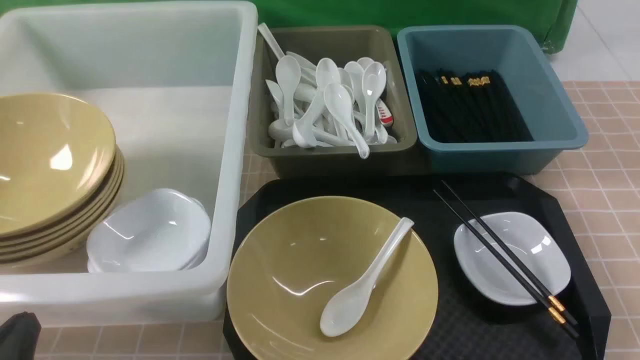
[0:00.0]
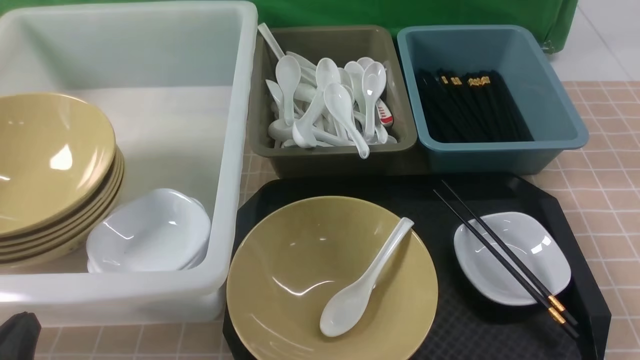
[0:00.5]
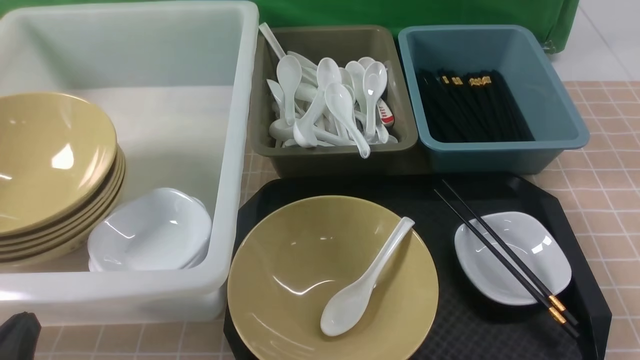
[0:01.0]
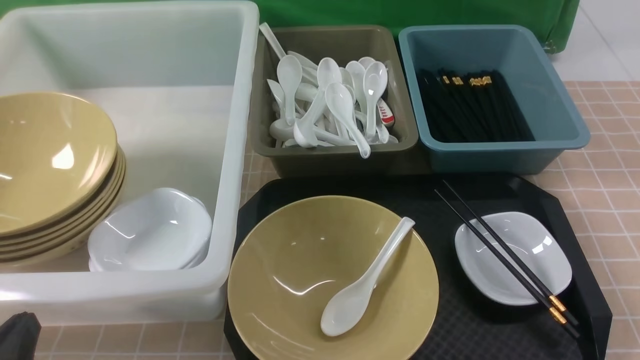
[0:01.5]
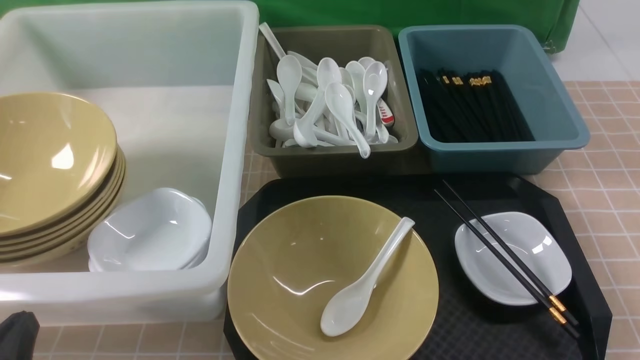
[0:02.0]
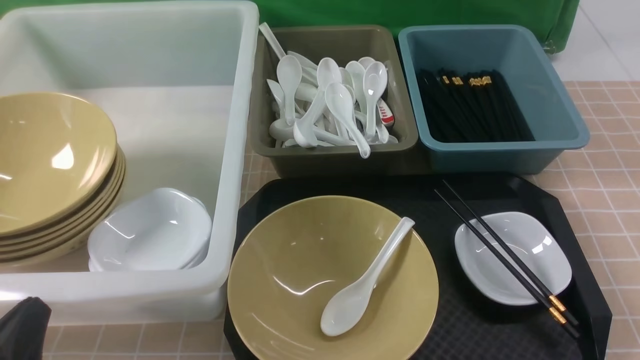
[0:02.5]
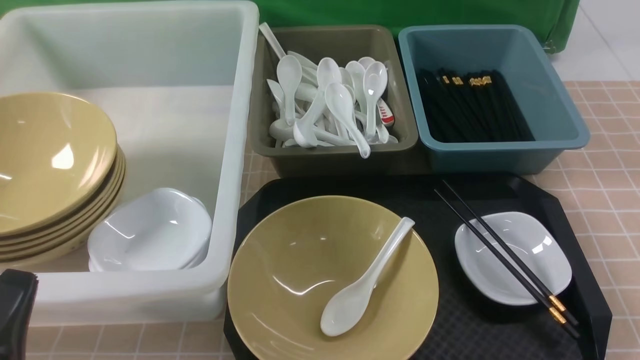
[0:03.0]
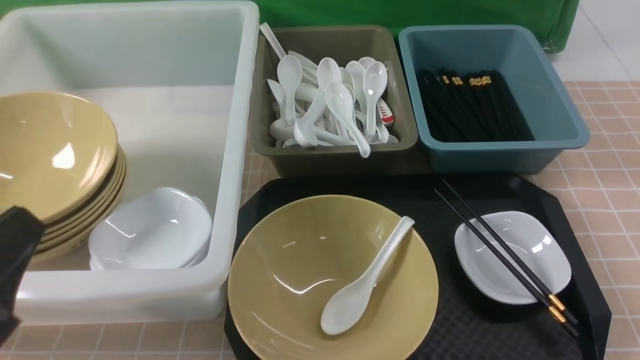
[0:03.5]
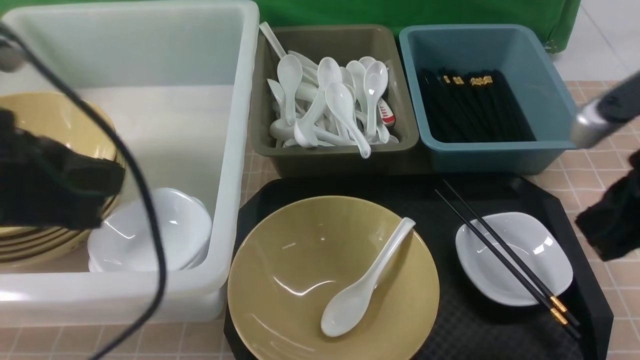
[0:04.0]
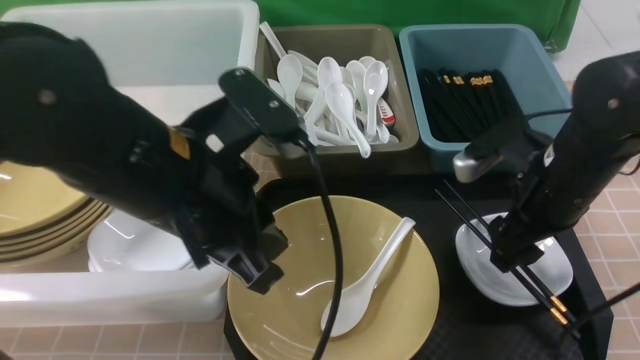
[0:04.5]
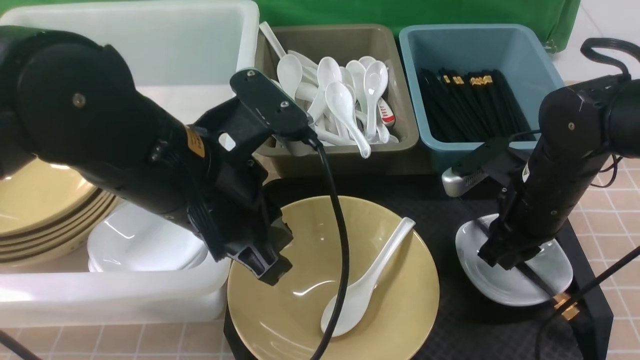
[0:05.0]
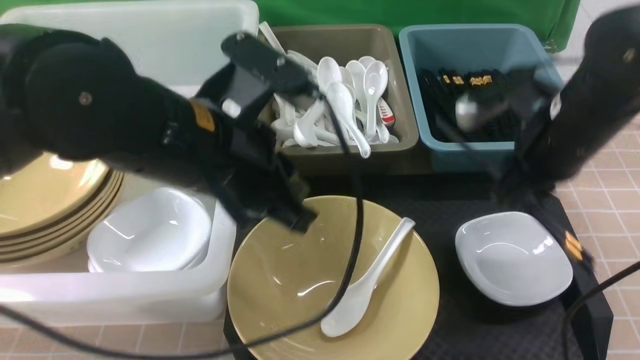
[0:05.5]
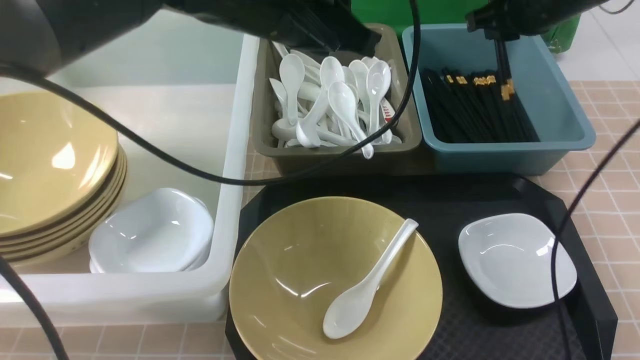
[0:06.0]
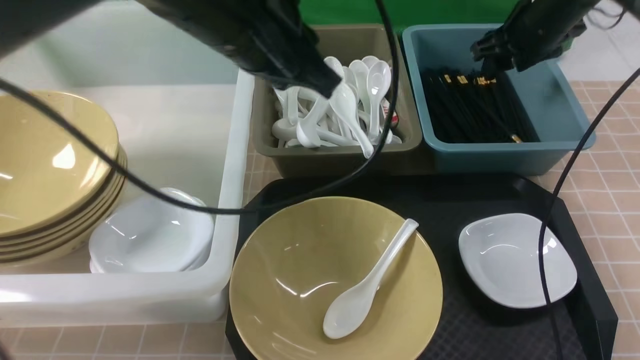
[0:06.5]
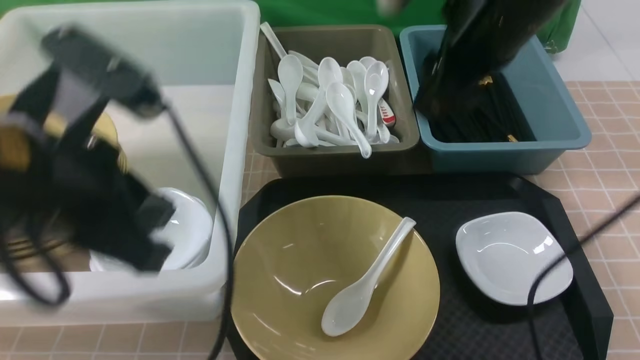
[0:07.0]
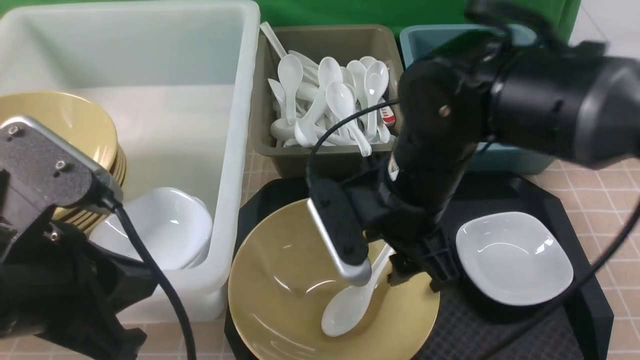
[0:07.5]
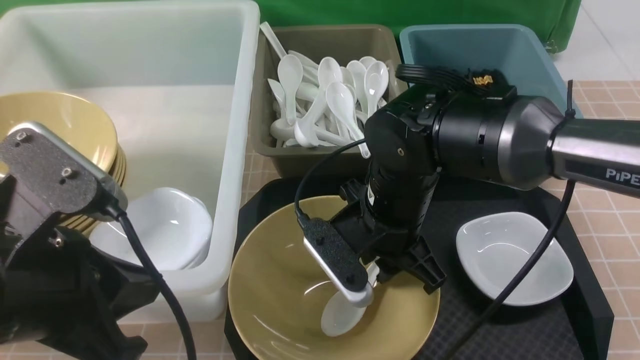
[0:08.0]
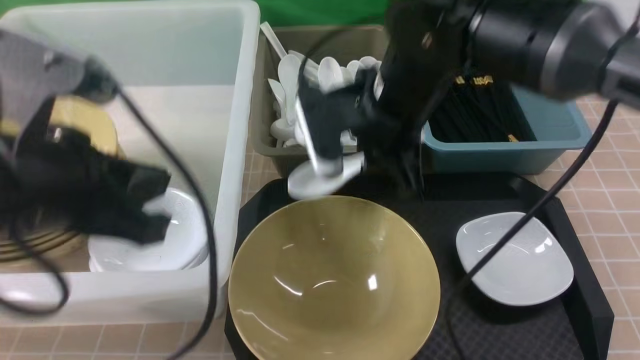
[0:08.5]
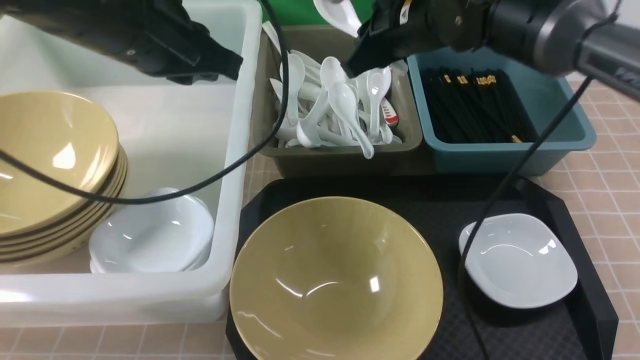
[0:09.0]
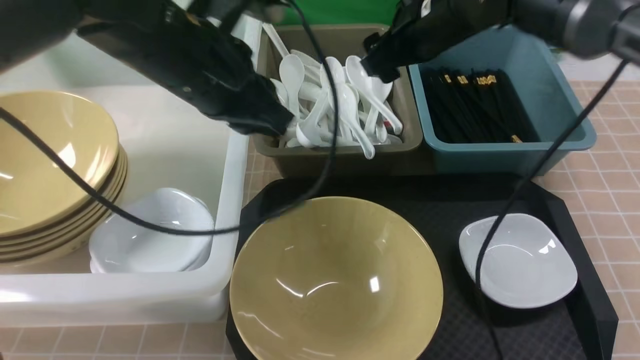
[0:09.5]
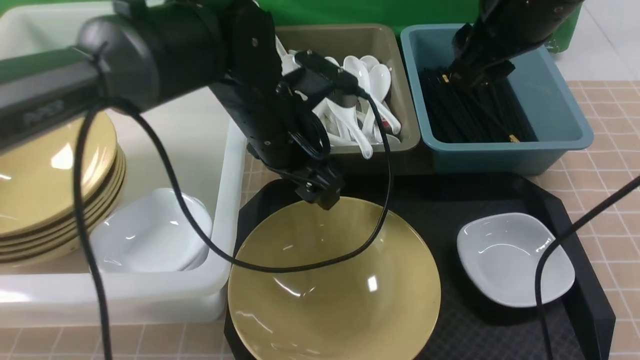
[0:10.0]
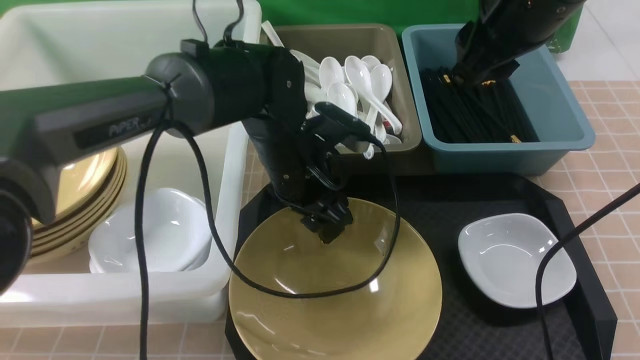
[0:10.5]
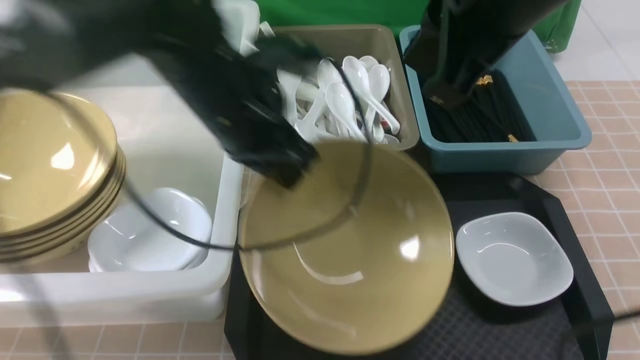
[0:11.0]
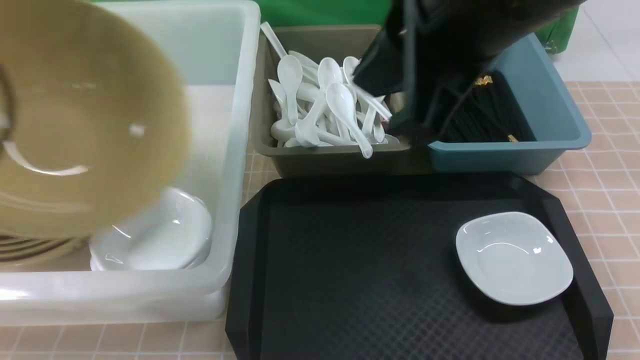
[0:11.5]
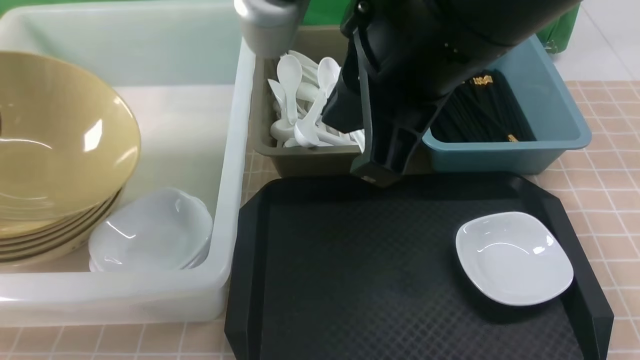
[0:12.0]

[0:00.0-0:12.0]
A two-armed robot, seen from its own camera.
Task of the whole recording: on brown table put chopsticks spoon bowls plates into blue grey white boxes.
Step, 0:00.0 to 0:05.0: use the right arm to grab the chopsticks.
Step, 0:05.5 to 0:06.5: use the right arm to put the chopsticks into the small storage box on the right.
Step, 0:07.0 to 0:08.0: use the right arm to grab the soup spoon in the middle.
Step, 0:08.5 to 0:09.5: use the right arm to put the soup spoon into the small storage box in the middle.
Step, 0:10.0 to 0:10.5: use the left arm to grab the yellow noodle bowl on the left.
0:00.0 to 0:02.0: The two grippers keep their place.
0:02.0 to 0:04.0: The right gripper shifts approximately 20 cm forward, upward and to the left. Meanwhile the left gripper is displaced upward and forward by approximately 20 cm.
0:04.0 to 0:06.0: The right gripper shifts some 25 cm forward, and opens, then closes again. Meanwhile the left gripper travels forward and to the right by approximately 20 cm.
0:06.0 to 0:08.0: The right gripper moves to the left, backward and downward, roughly 25 cm, and opens and closes again, while the left gripper travels backward and to the left by roughly 25 cm.
0:08.0 to 0:10.0: The left gripper moves forward and to the right, approximately 25 cm, and opens, while the right gripper moves upward and to the right, roughly 20 cm.
0:10.0 to 0:12.0: The right gripper goes some 15 cm backward and to the left, and closes up. Meanwhile the left gripper is displaced to the left by about 35 cm, and closes up.

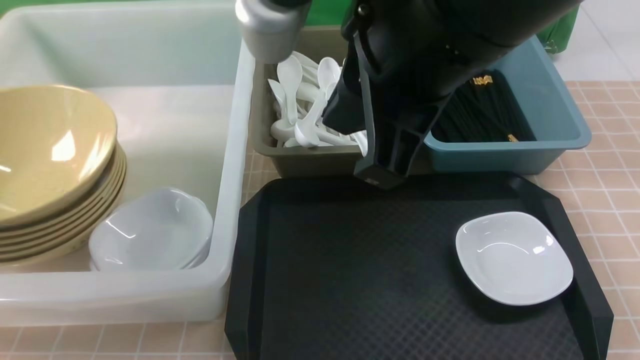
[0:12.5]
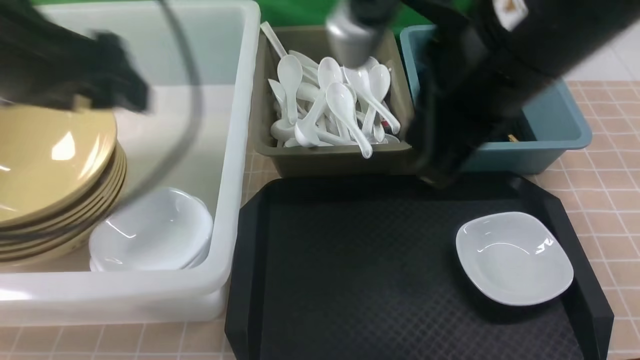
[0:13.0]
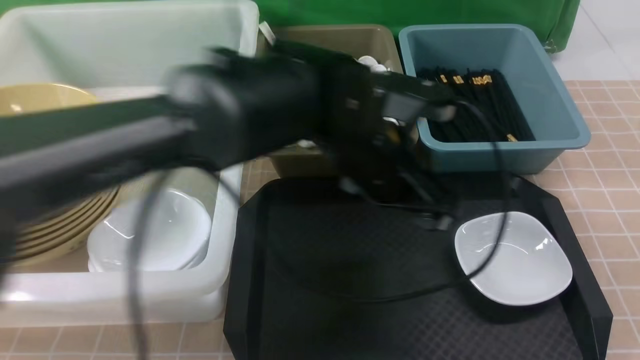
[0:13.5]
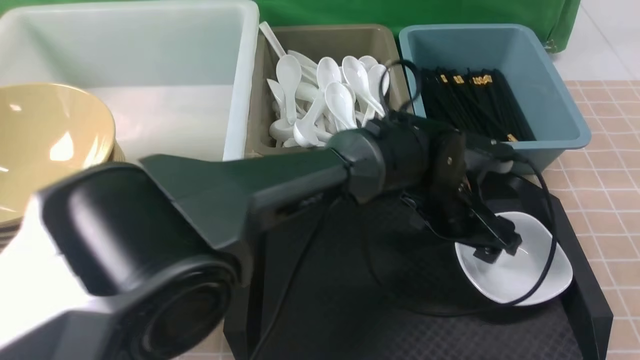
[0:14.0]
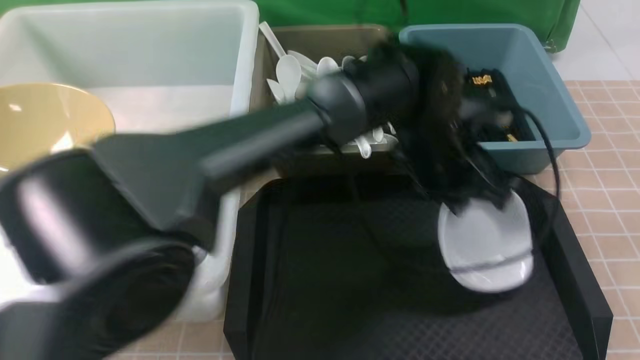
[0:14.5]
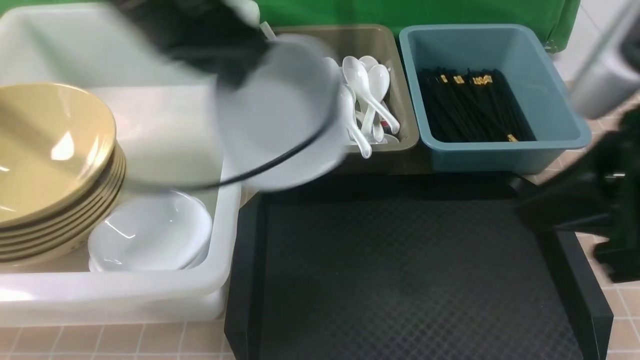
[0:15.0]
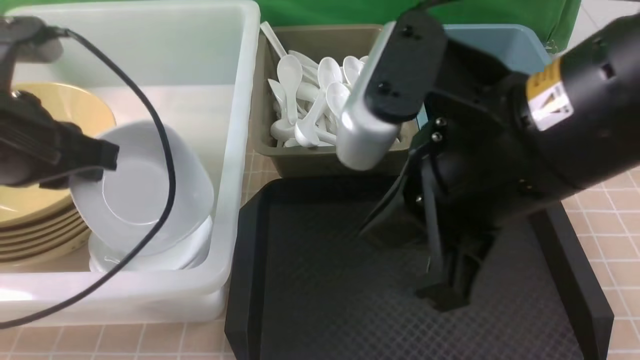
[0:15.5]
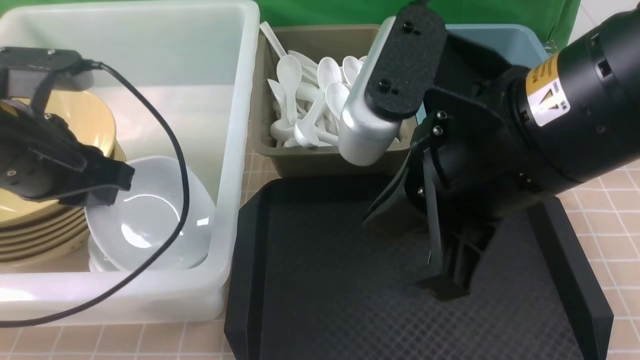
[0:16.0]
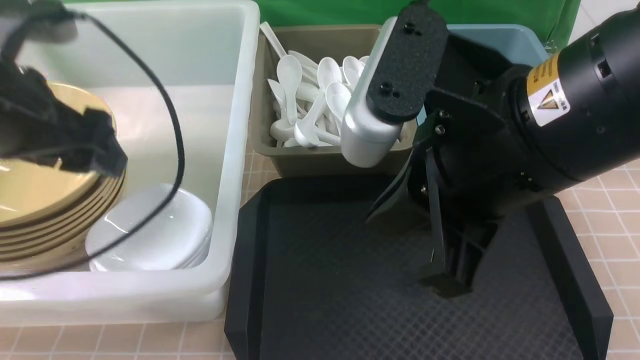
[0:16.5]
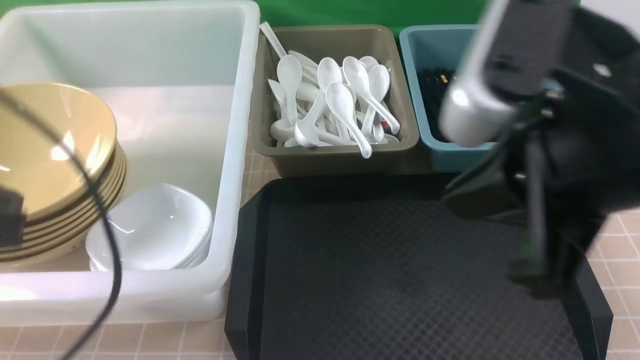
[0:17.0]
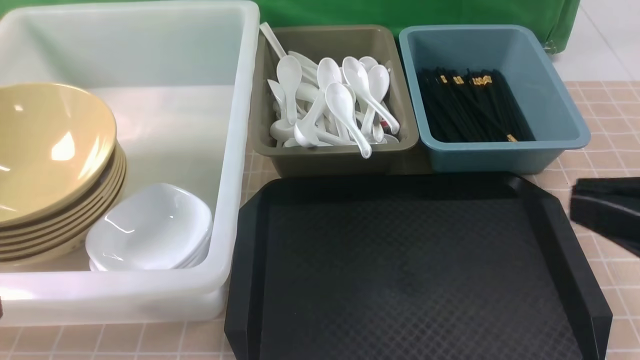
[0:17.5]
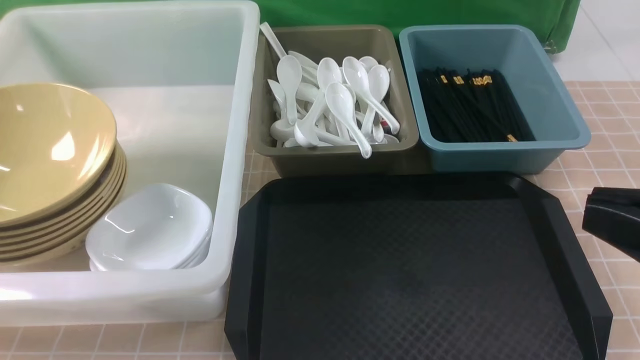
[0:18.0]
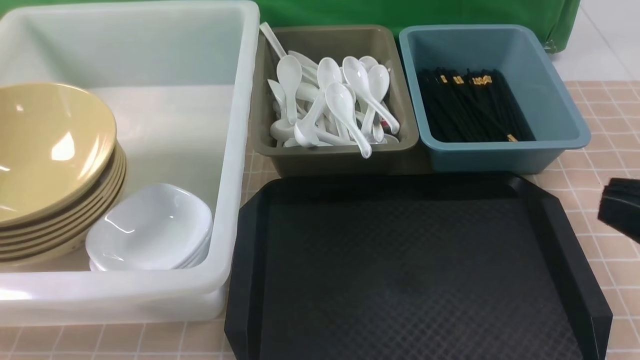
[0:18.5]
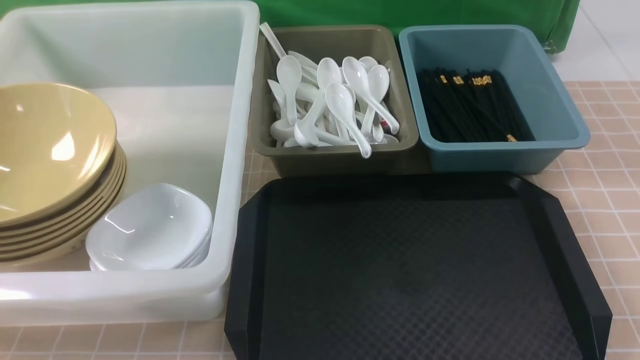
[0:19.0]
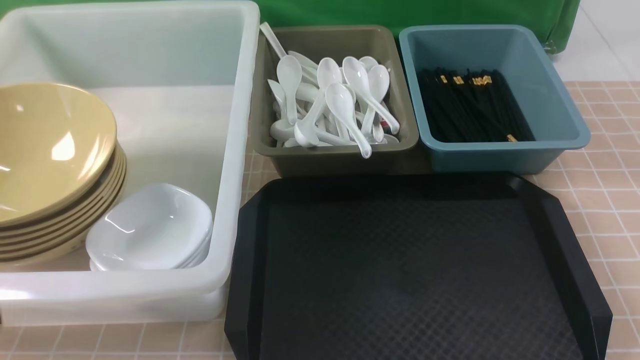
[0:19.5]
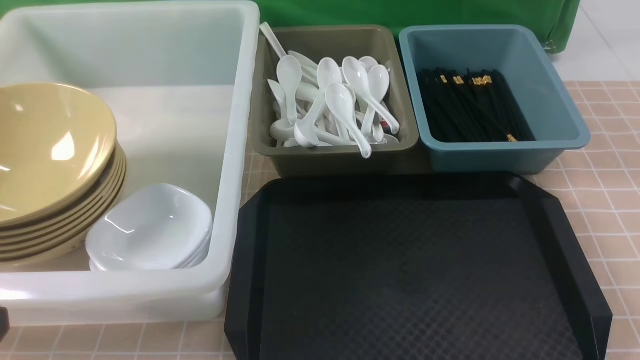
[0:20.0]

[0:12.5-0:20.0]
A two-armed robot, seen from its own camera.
Task of the whole recording: on brown table put chopsticks spoon bowls plates into blue grey white boxes.
Step, 0:13.0 to 0:14.0: use the left arm to grab the plate.
Step, 0:14.5 to 0:16.0: use the left arm to put the plate into the large storage box on the left.
0:12.5 to 0:14.5: The right gripper is displaced to the right and backward by approximately 20 cm; the left gripper heads to the right, covering some 50 cm, and closes its fingers.
0:14.5 to 0:16.5: The left gripper shifts approximately 30 cm to the left, and opens its fingers. Meanwhile the right gripper is displaced to the left by approximately 15 cm.
0:16.5 to 0:18.0: The right gripper heads to the right and backward, covering roughly 15 cm. The left gripper moves backward, some 20 cm, and closes its fingers.
0:18.0 to 0:20.0: The right gripper shifts approximately 20 cm downward and to the right.
